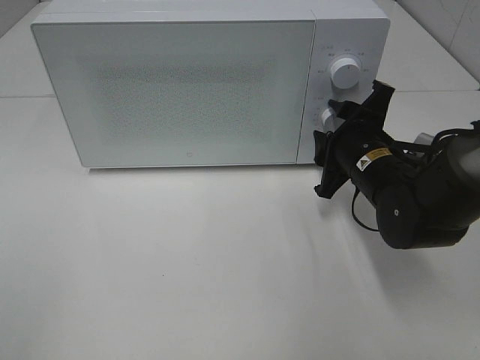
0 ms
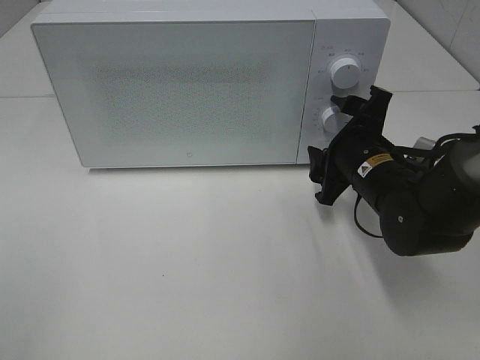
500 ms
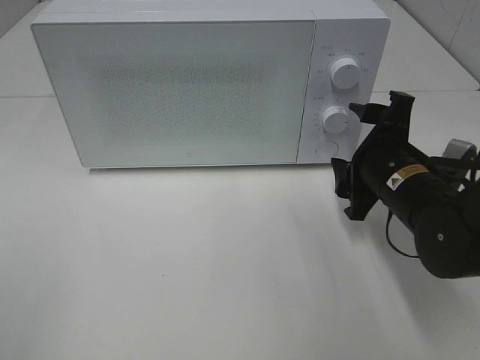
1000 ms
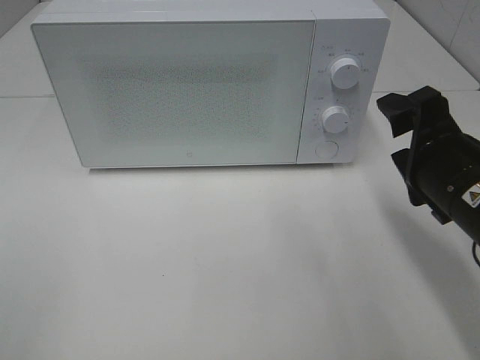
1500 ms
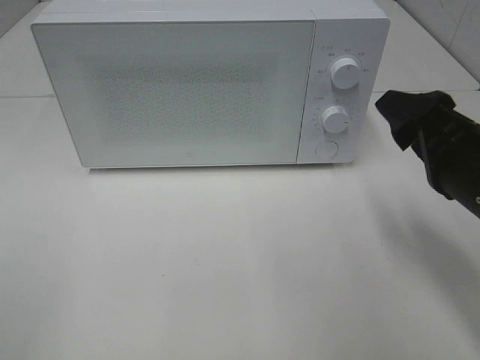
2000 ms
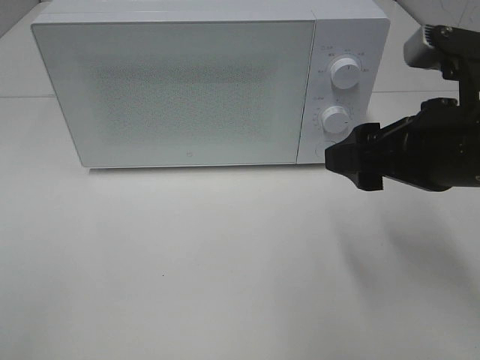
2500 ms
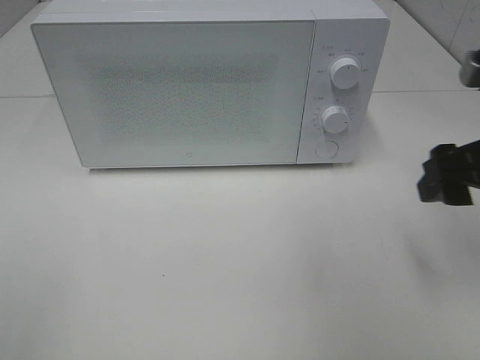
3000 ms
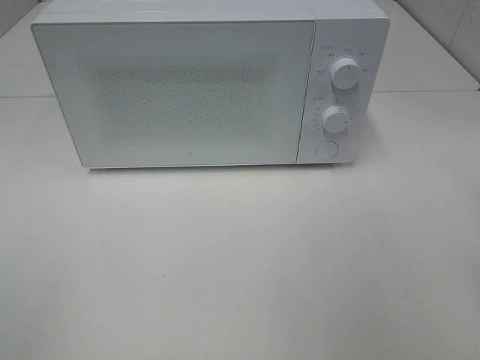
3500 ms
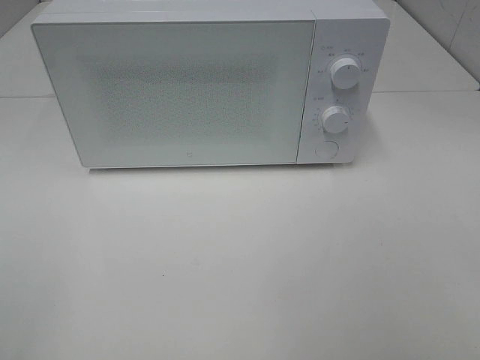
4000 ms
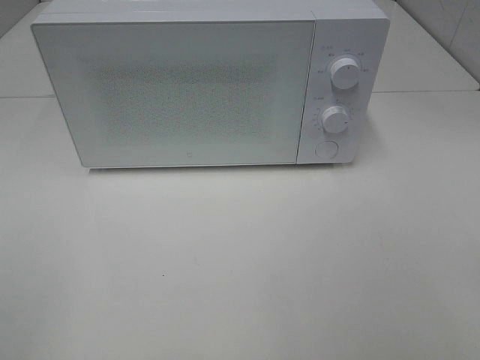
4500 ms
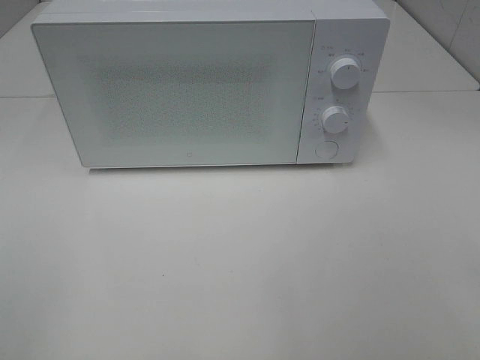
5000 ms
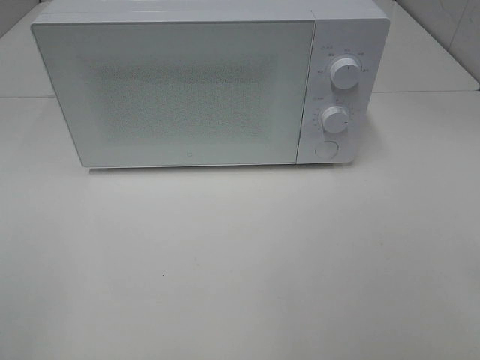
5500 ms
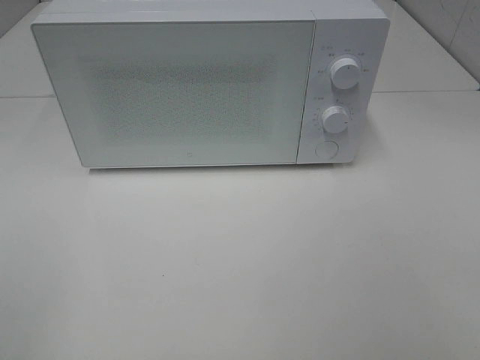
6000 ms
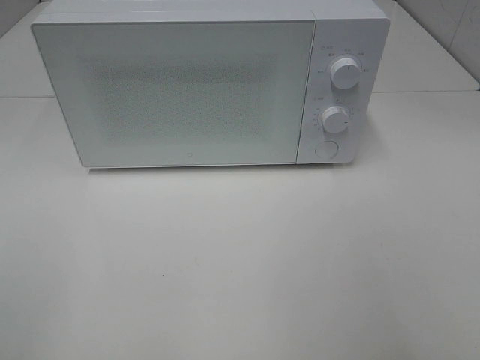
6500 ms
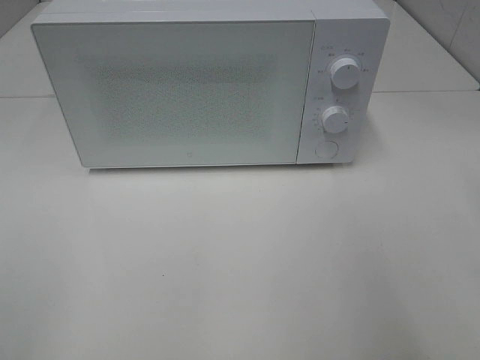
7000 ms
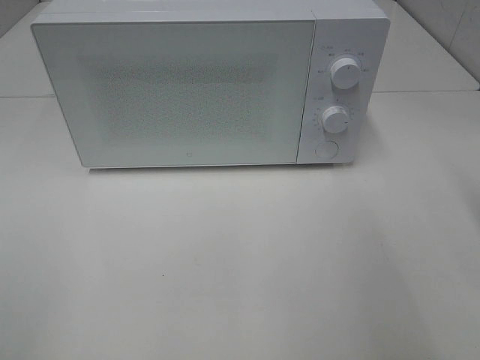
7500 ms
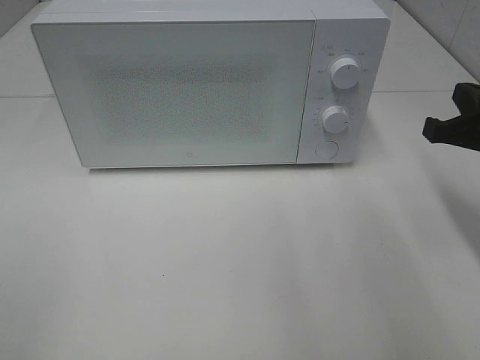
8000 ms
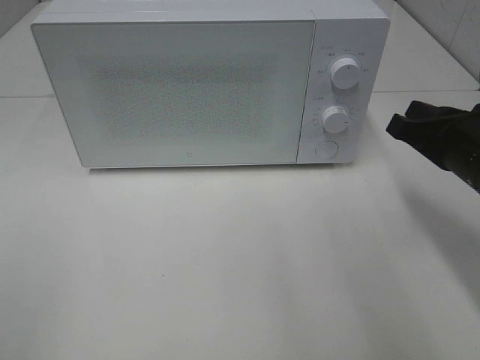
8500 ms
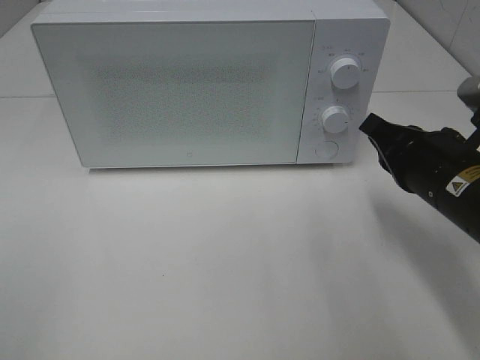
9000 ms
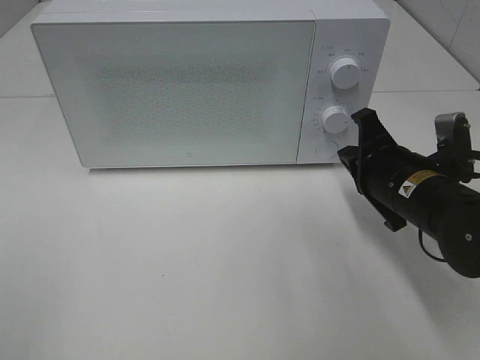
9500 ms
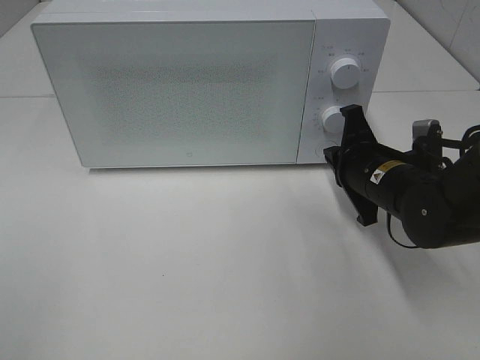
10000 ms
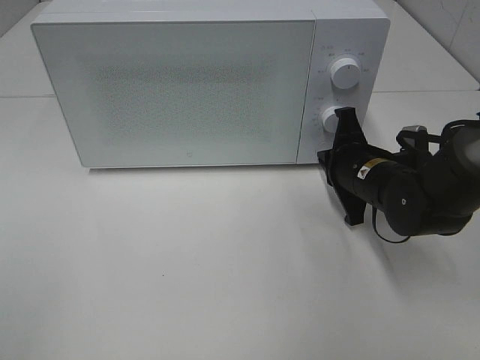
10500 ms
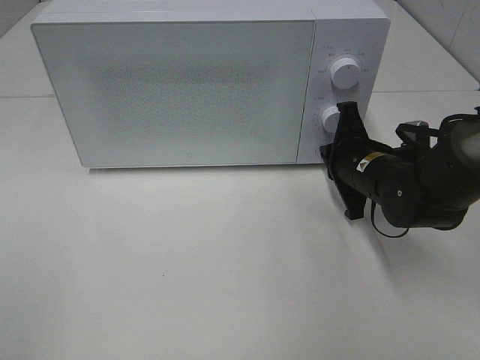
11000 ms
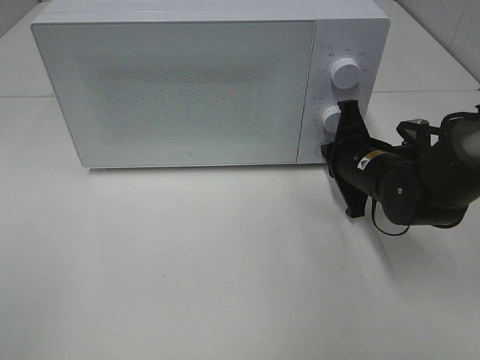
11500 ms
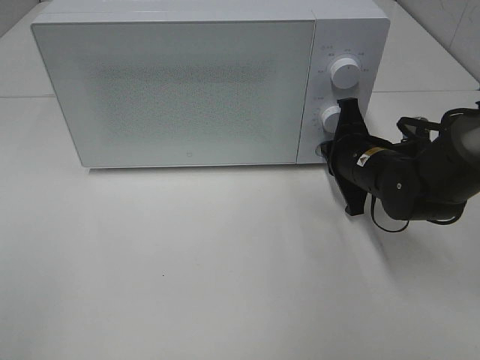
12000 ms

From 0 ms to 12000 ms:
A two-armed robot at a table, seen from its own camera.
Task of the whole recording: Heat the burger.
From 0 ms to 2000 ms: The right gripper heads backward, upward and to the right, covering about 15 cm.
From 2000 ms to 4000 ms: The right gripper is displaced backward, upward and to the right by approximately 20 cm.
From 6000 ms to 8000 ms: The right gripper shifts approximately 25 cm forward, and closes its fingers.
From 8000 ms to 10000 ms: The right gripper moves to the left, downward and forward, roughly 15 cm.
From 10000 ms to 12000 ms: There are only small adjustments of the grippers.

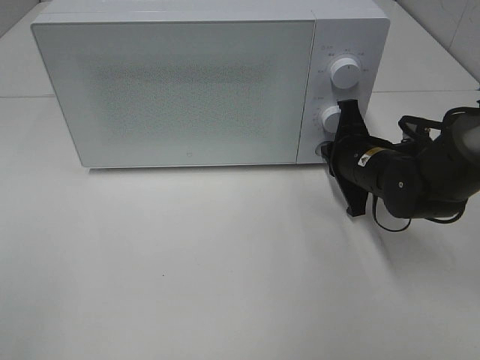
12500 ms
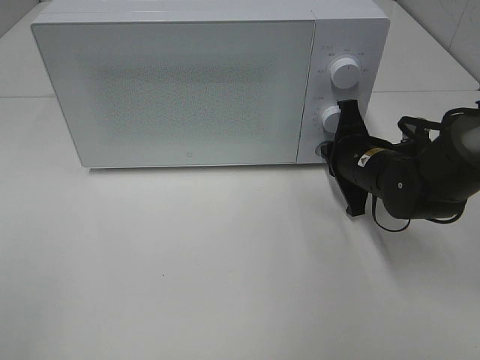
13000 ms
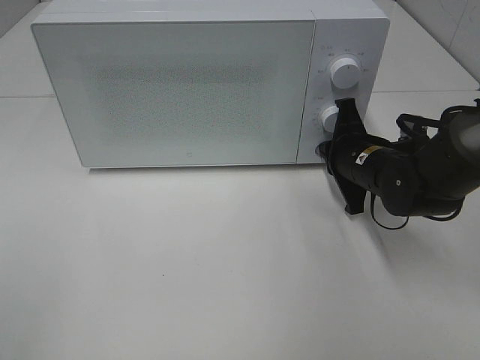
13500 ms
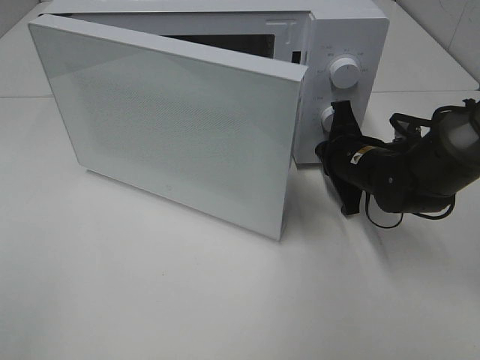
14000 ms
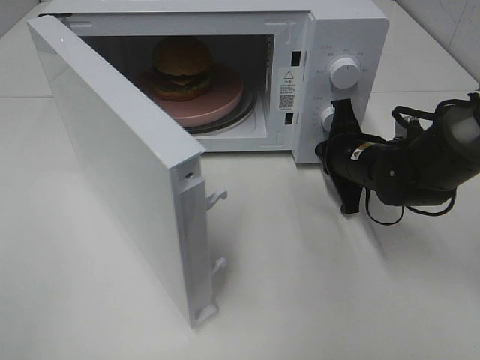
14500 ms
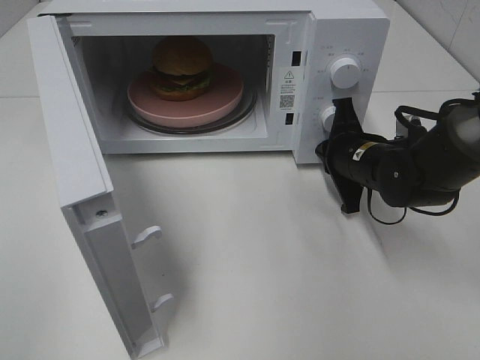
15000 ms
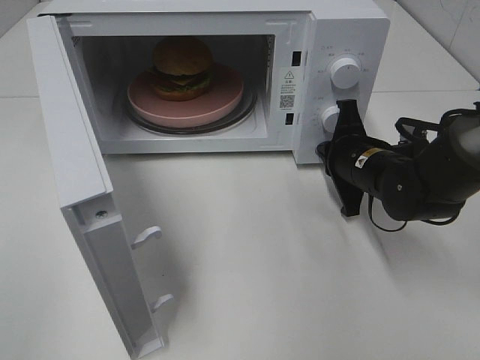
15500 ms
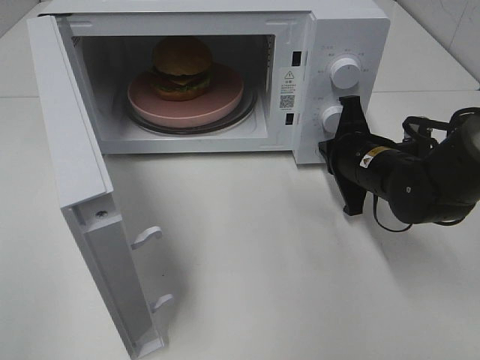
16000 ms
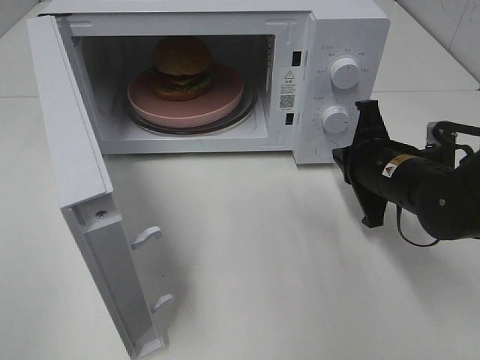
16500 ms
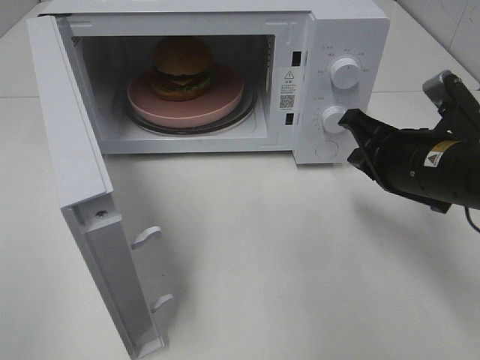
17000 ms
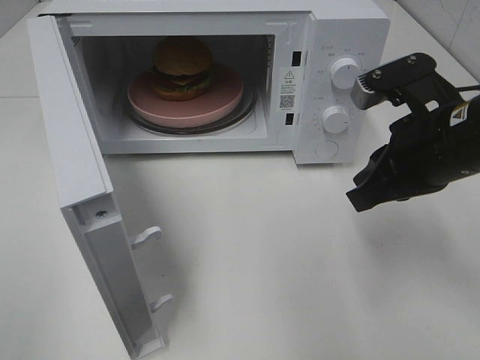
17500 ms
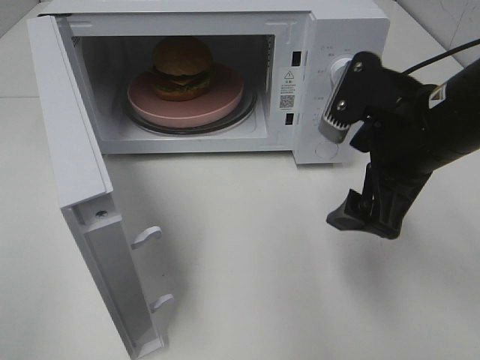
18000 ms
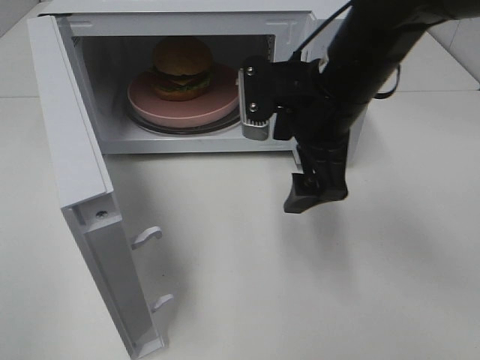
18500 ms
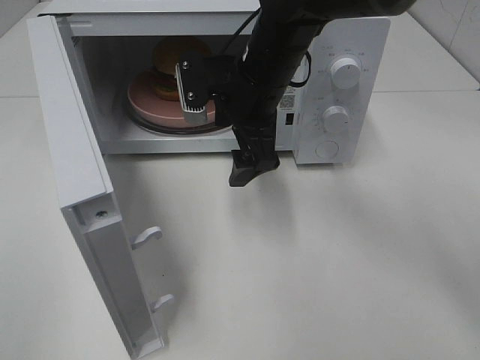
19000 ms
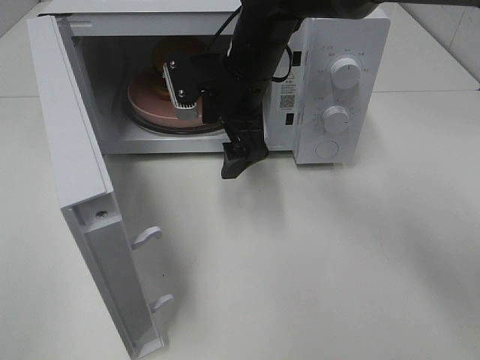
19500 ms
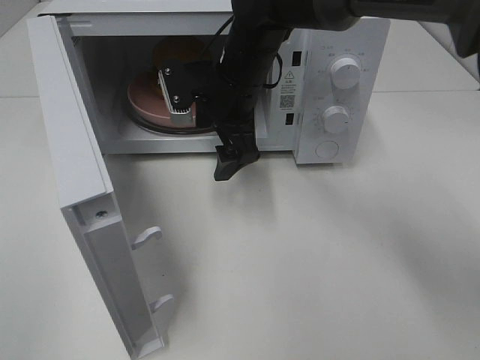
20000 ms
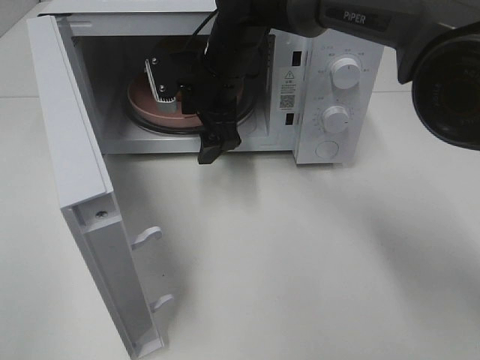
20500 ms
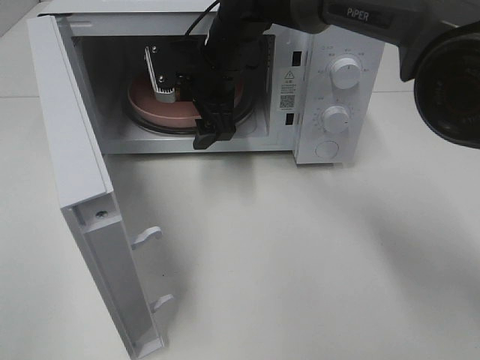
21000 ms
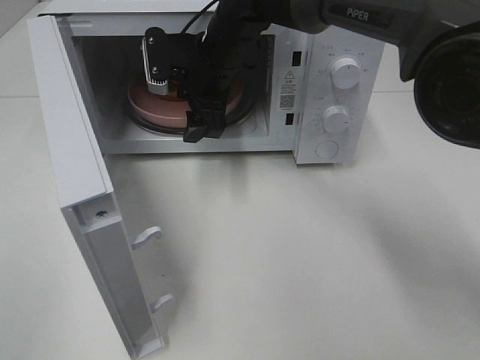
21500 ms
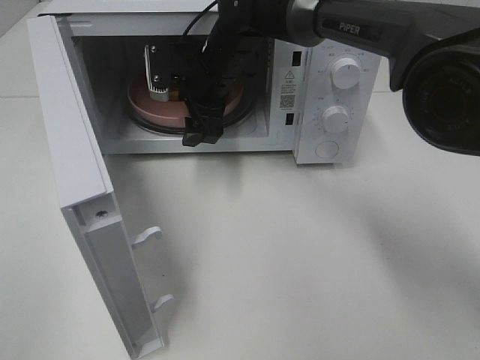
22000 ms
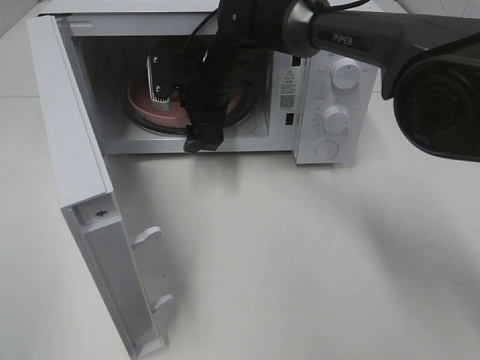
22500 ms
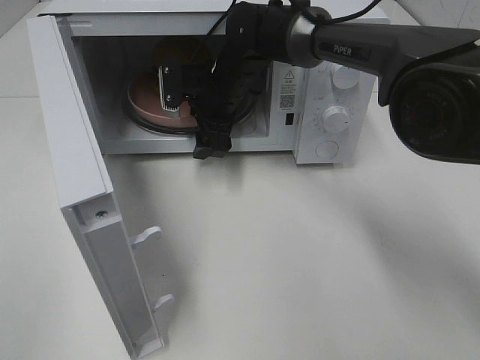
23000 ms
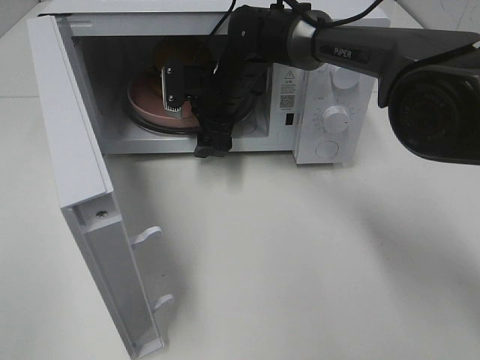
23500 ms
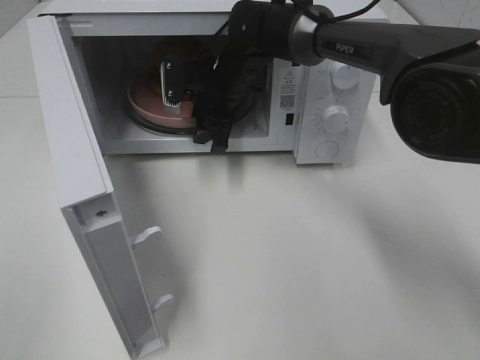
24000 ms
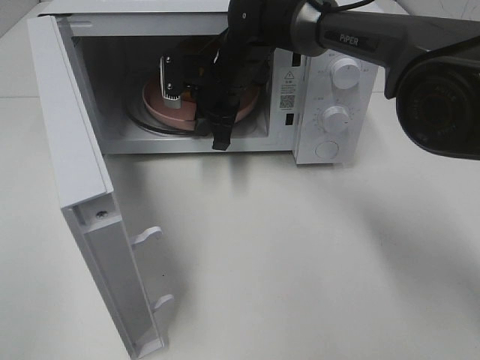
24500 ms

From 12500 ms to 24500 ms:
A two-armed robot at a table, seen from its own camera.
Task of the whole recording: Heat the burger.
Step, from 12500 ms to 15500 ms: Right hand: press the switch.
Step, from 16000 ms to 24000 ms: Right hand: grab the plate with the hamburger.
From 14500 ms to 16500 ms: The right gripper heads backward, covering approximately 5 cm.
From 16500 ms to 18500 ms: The right gripper goes about 15 cm upward and to the left, and opens.
From 18500 ms to 20500 ms: The right gripper shifts approximately 15 cm forward and to the left.
From 20500 ms to 22500 ms: The grippers stay close to where they were, moving slightly.
From 22500 ms to 24500 ms: The right gripper closes.

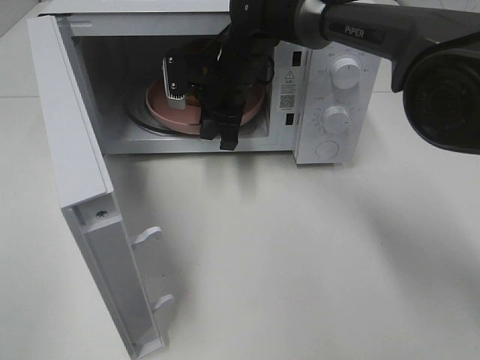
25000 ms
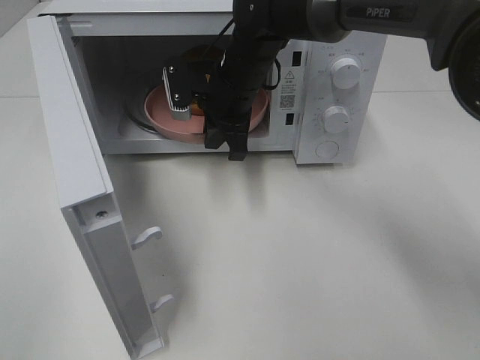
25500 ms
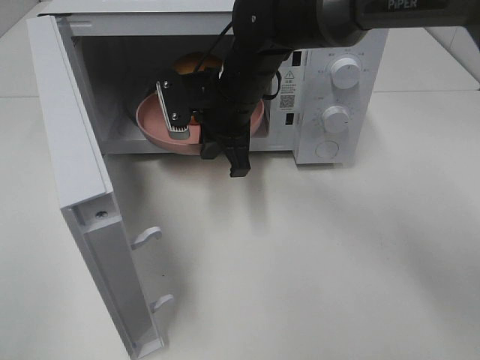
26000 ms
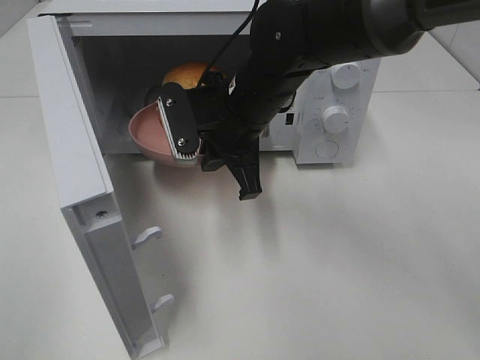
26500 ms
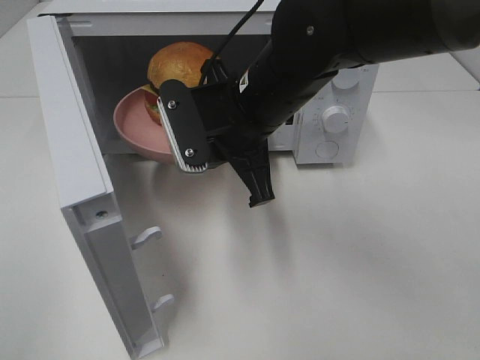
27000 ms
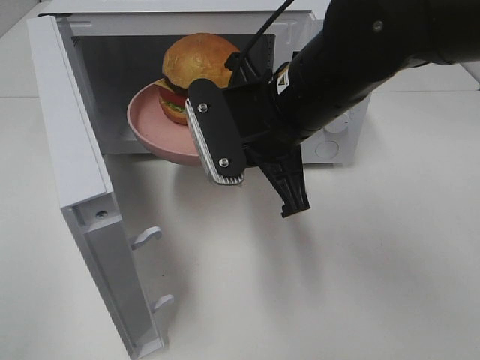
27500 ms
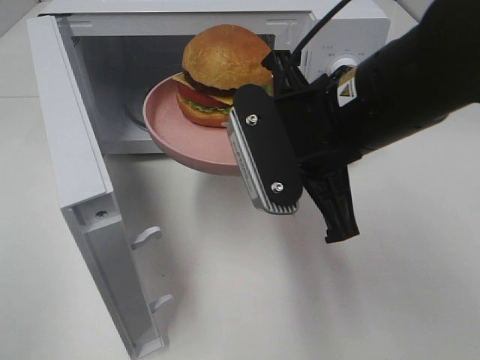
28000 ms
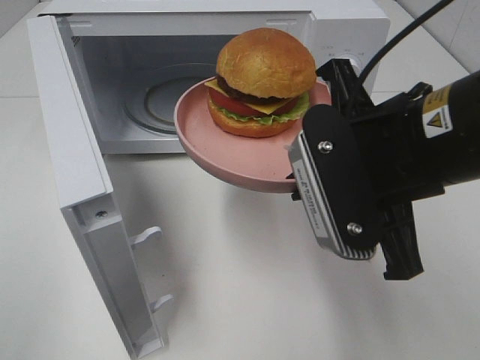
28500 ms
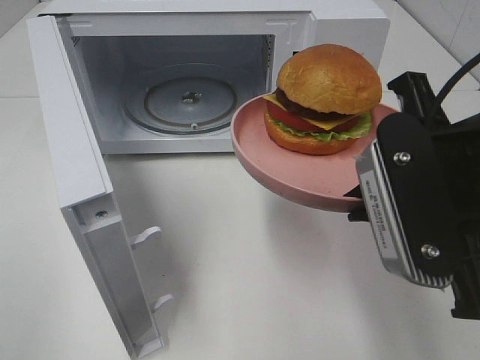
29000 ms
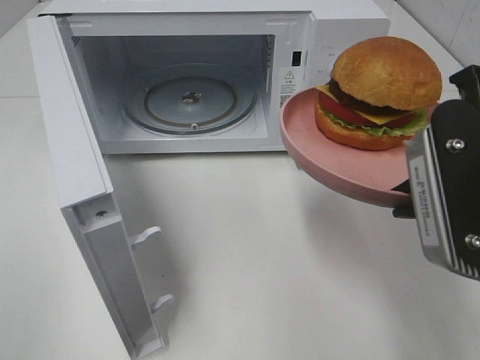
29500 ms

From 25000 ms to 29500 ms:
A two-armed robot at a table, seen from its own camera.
Task of the whole recording: Heat the burger.
From 25000 ms to 27000 ms: The right gripper is displaced backward by about 15 cm.
From 27000 ms to 29500 ms: The right gripper shifts about 20 cm to the right and backward.
